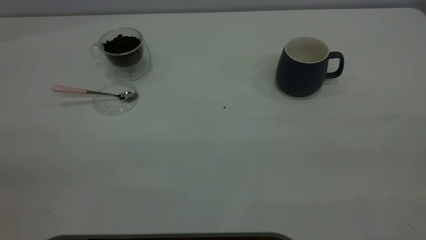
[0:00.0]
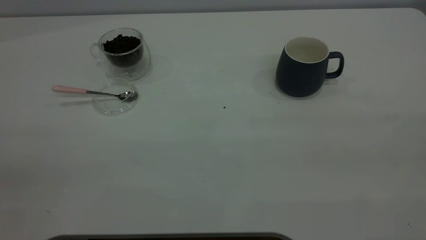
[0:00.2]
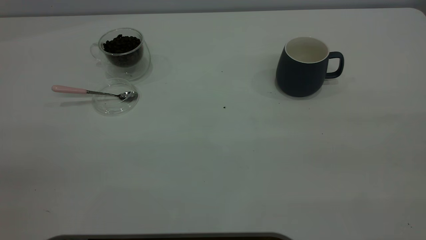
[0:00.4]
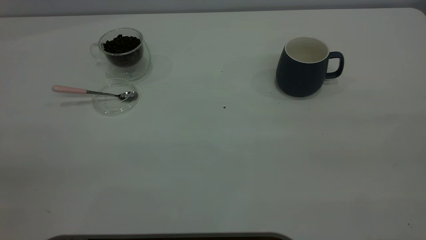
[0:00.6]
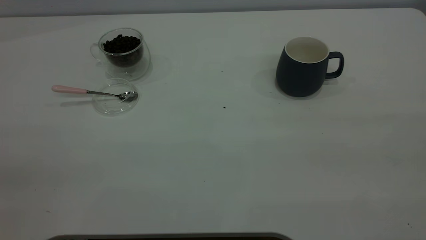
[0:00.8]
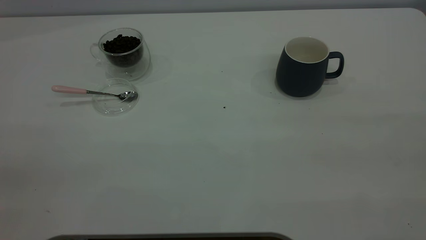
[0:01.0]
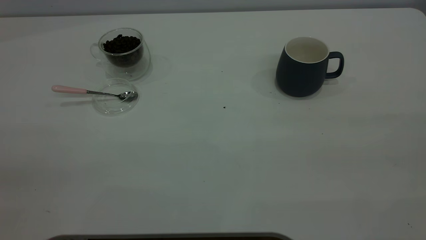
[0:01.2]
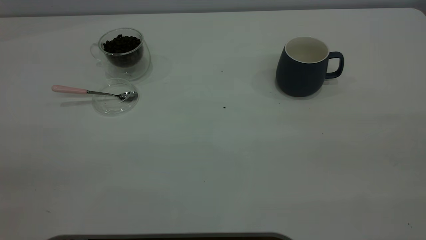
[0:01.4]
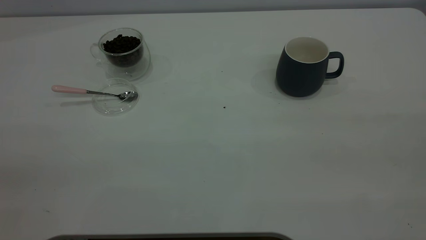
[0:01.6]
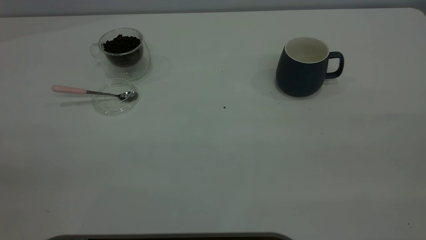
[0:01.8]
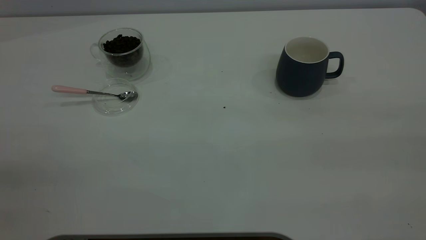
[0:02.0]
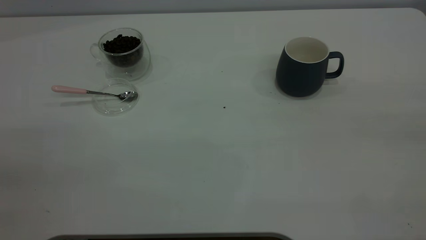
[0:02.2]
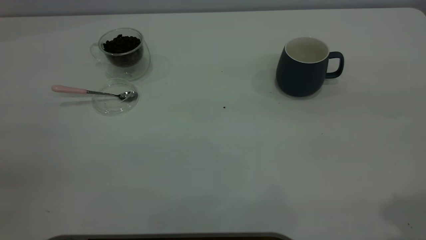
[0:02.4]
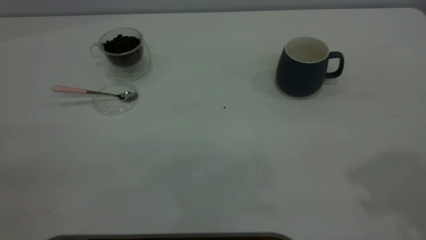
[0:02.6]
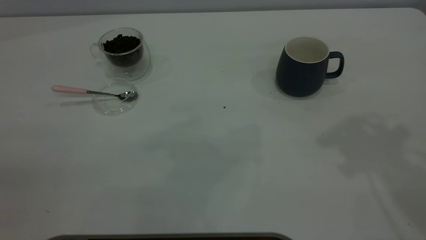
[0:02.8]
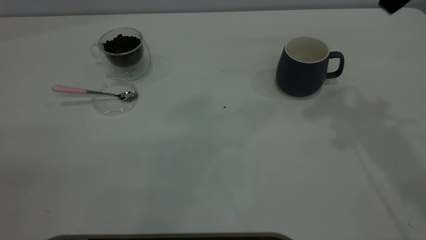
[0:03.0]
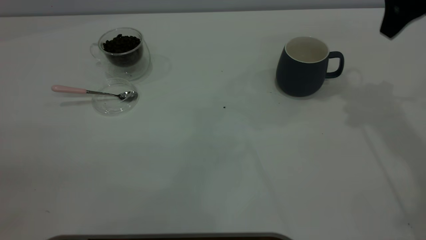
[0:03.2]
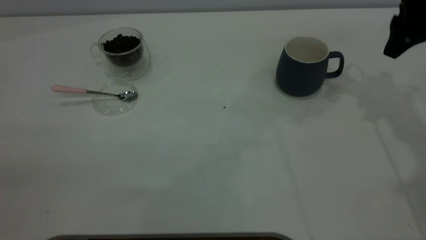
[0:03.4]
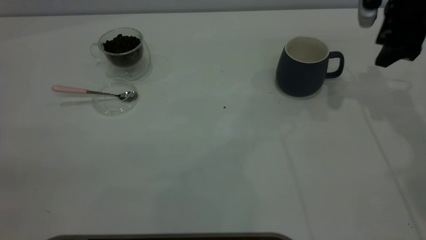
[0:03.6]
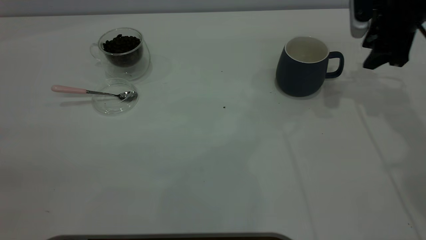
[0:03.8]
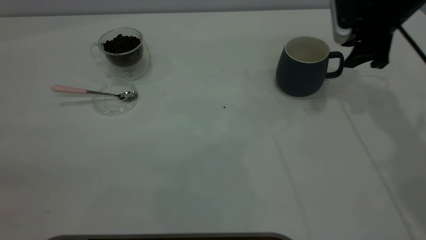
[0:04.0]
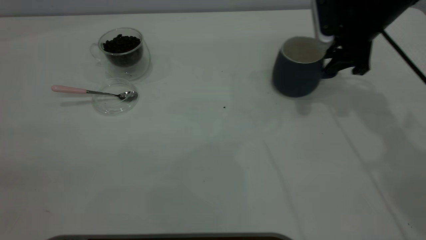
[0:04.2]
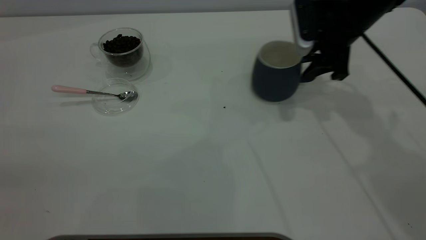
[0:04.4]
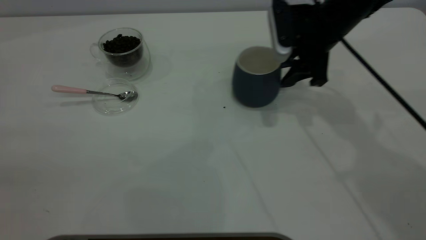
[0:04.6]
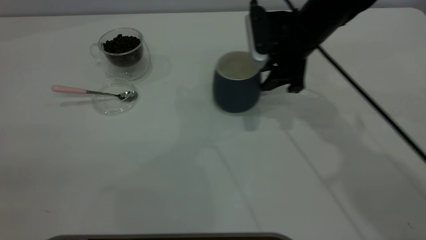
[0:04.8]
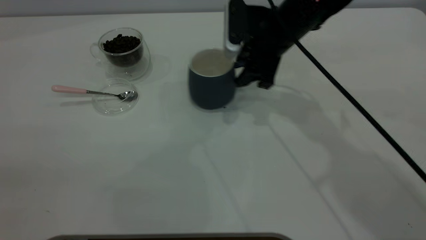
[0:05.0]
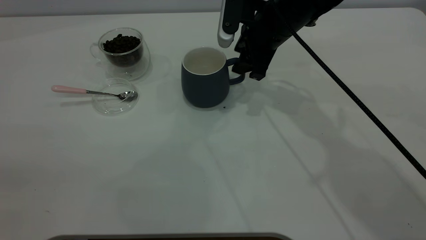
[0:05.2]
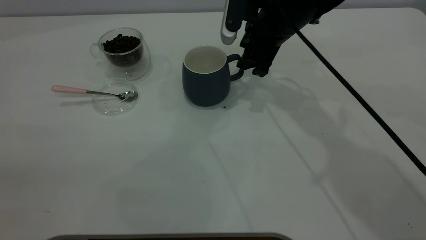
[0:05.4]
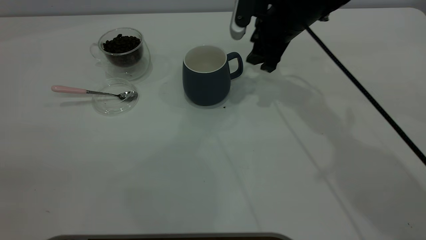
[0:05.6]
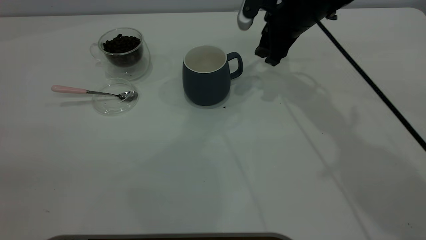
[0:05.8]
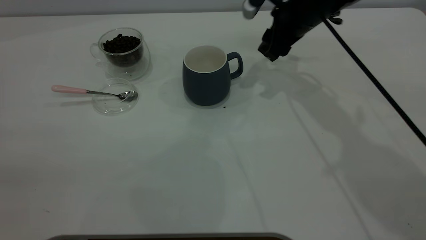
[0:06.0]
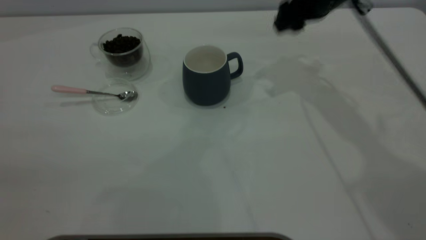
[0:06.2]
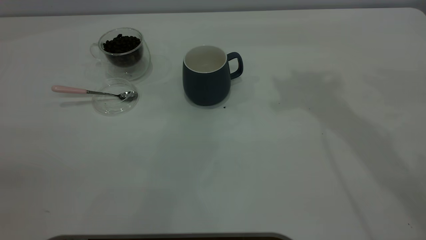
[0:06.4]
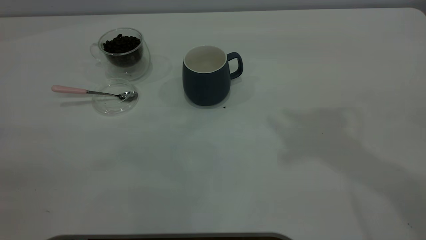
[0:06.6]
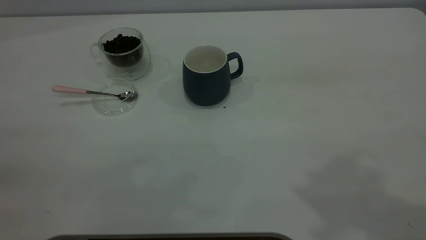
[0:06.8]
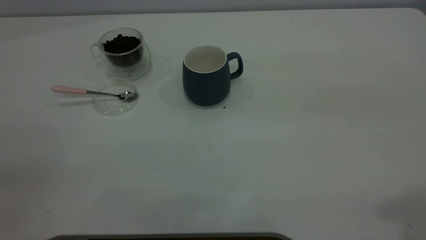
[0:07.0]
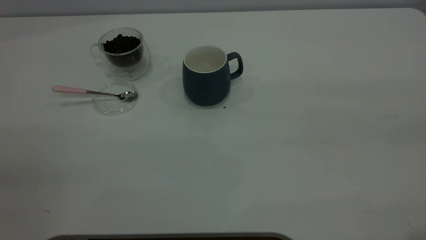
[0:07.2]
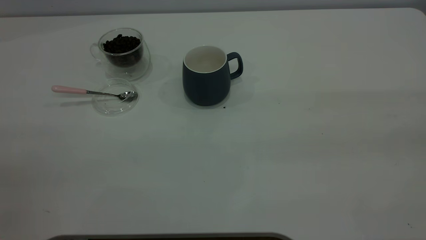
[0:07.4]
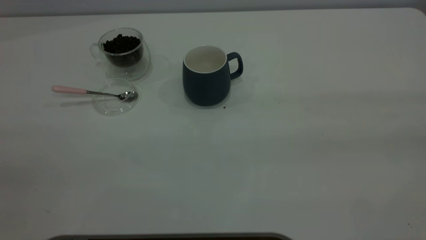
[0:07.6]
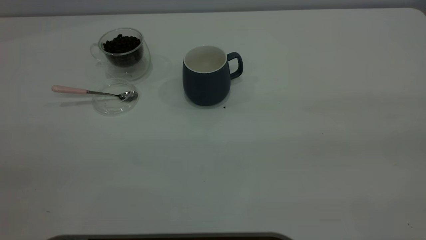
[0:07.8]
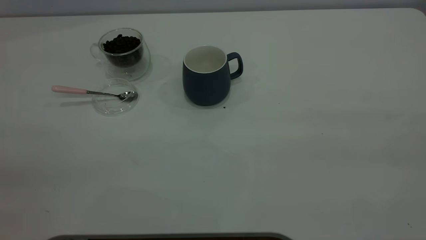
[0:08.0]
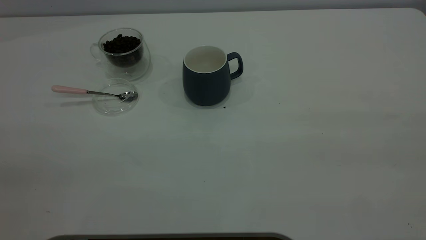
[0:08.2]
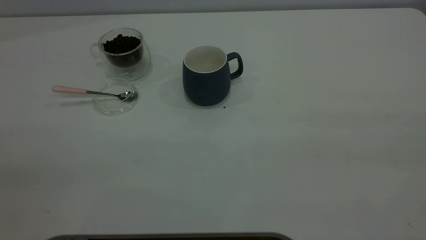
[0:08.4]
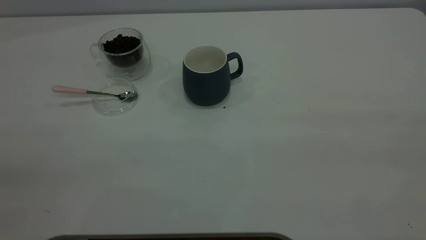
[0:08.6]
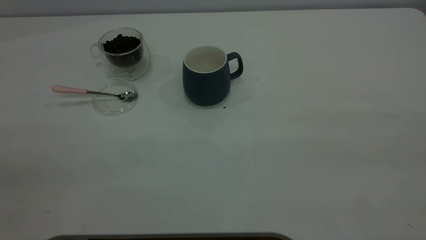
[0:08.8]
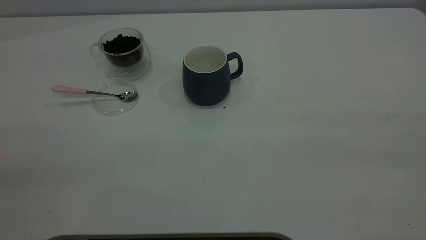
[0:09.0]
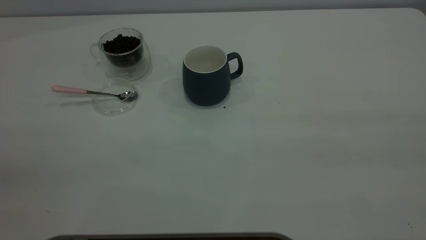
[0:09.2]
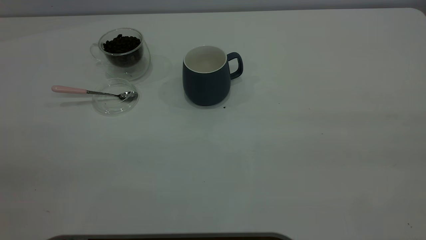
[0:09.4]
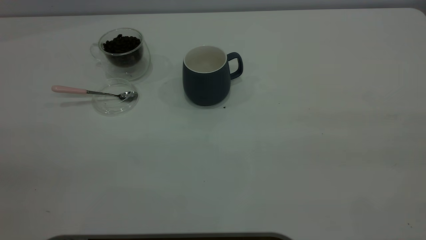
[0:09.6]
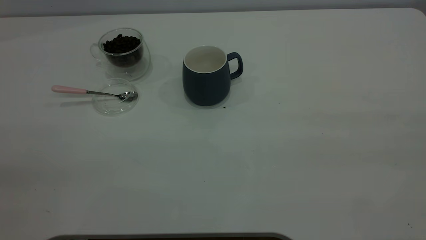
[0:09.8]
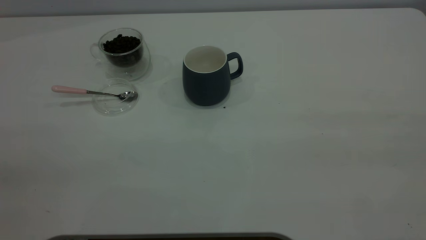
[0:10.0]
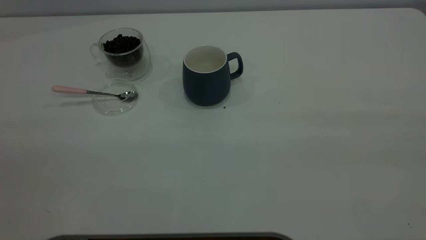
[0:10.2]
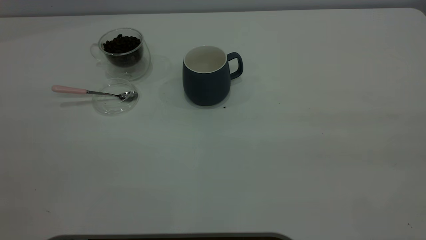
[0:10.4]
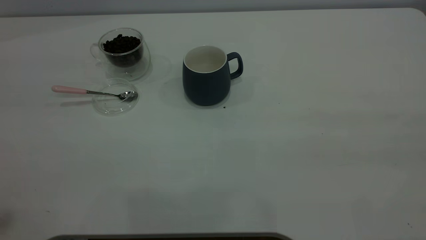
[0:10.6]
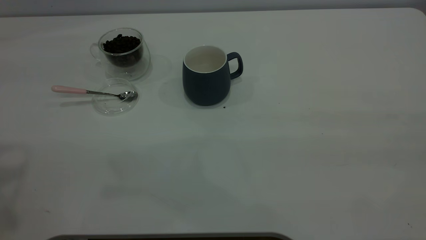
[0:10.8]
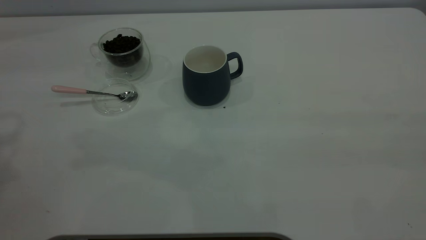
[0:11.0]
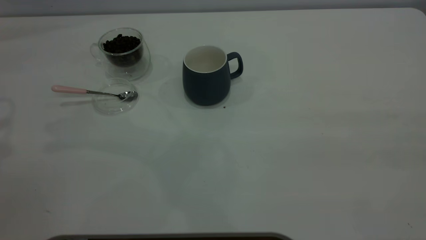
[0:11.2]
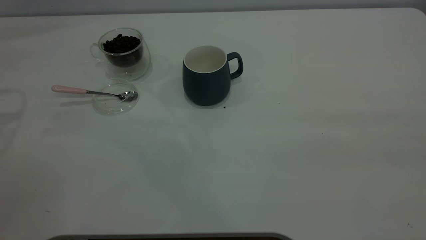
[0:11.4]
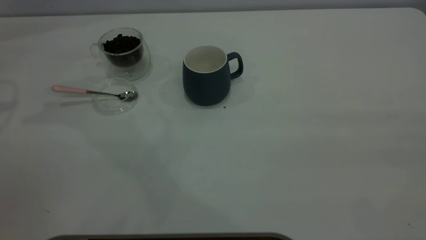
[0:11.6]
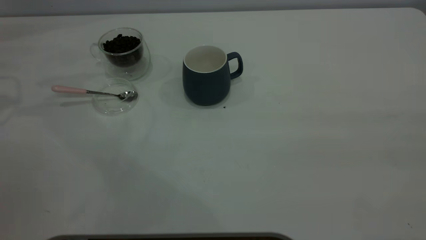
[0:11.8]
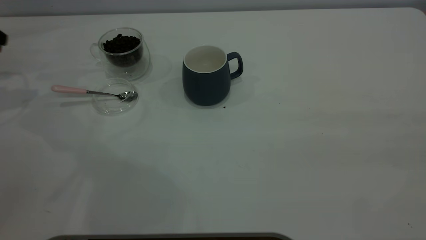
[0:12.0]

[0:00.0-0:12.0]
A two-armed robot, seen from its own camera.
Task of the whole recording: the right gripper place the grey cup in the center of the table, the left gripper take the pink spoon from the cup lid and scoop out the coffee beans from the coffee cup and put them into the grey cup, the left gripper put the spoon back into the cup lid.
Step, 0:00.0 to 0:05.4: Move the cup to the center of view.
0:00.0 to 0:01.6: Both grippers stay about where they are.
0:03.0 to 0:04.4: The right gripper goes some 20 cm downward and forward, and closes.
0:06.0 to 0:07.6: The right gripper heads backward and upward, covering about 50 cm, and closes its fingers.

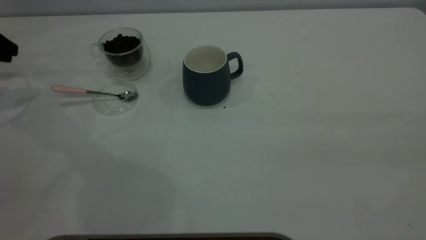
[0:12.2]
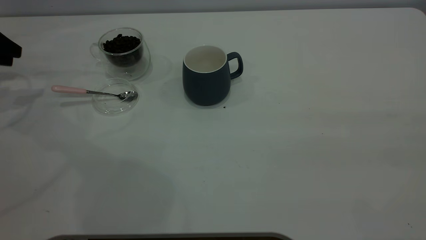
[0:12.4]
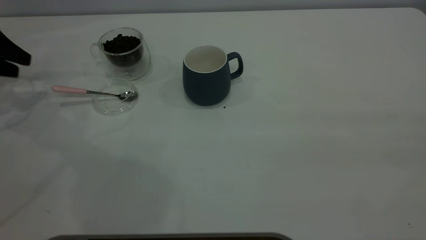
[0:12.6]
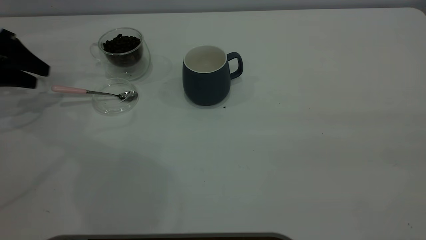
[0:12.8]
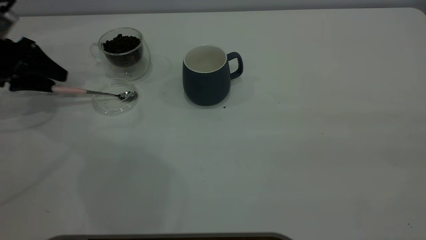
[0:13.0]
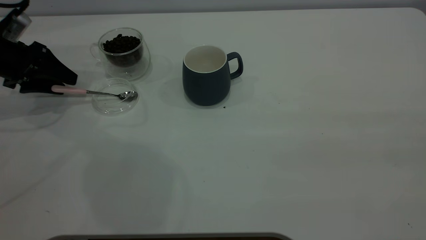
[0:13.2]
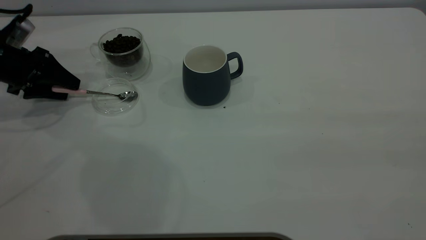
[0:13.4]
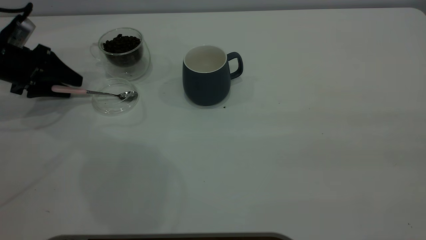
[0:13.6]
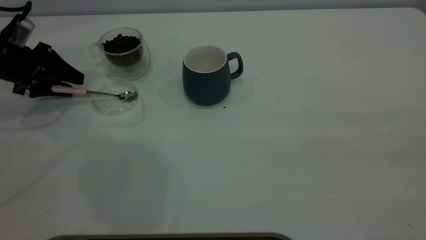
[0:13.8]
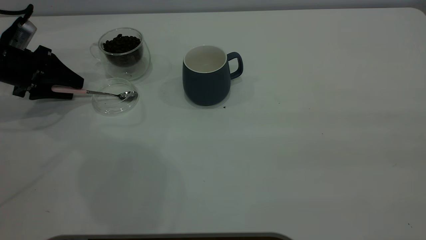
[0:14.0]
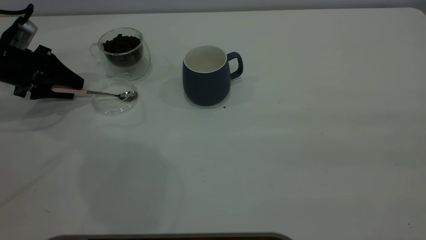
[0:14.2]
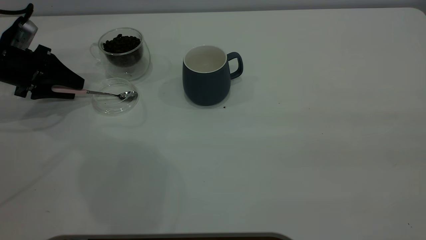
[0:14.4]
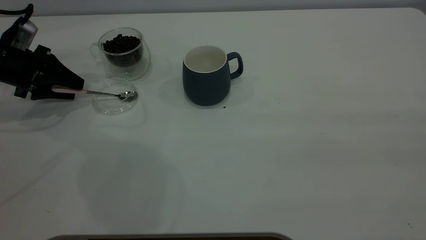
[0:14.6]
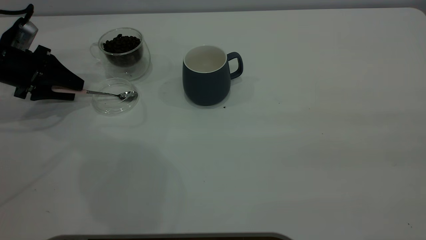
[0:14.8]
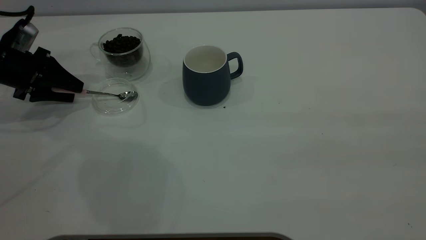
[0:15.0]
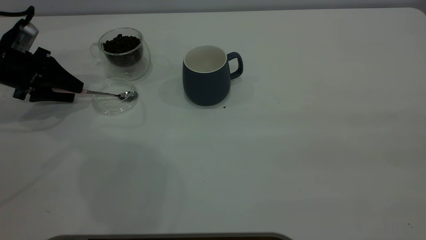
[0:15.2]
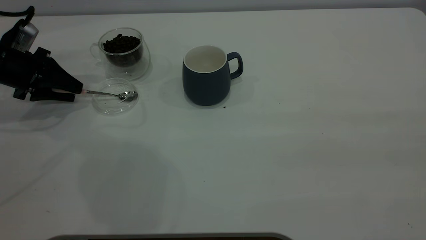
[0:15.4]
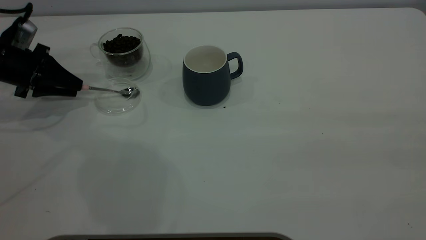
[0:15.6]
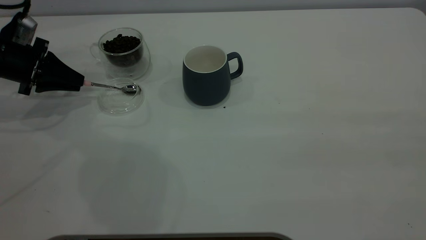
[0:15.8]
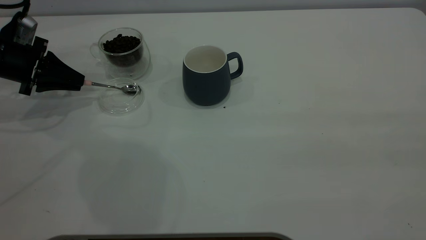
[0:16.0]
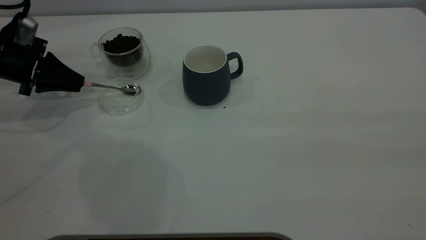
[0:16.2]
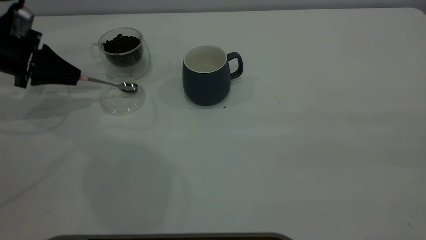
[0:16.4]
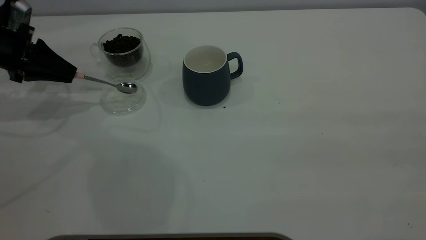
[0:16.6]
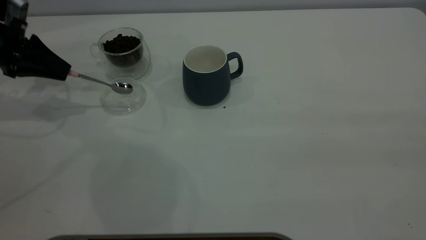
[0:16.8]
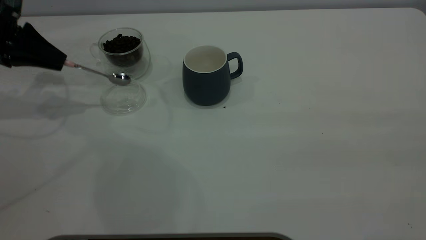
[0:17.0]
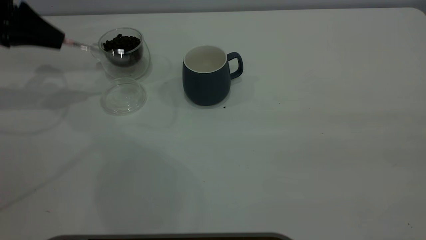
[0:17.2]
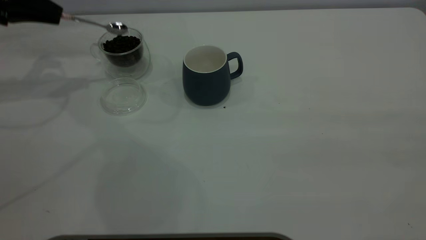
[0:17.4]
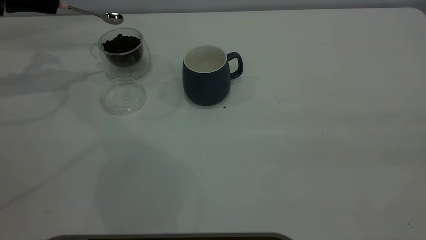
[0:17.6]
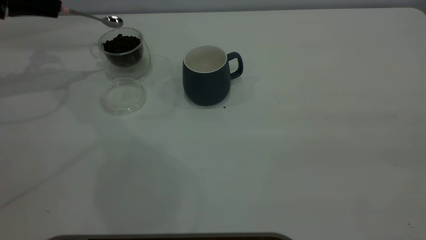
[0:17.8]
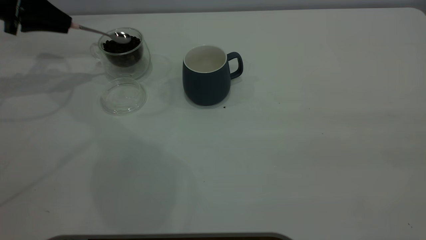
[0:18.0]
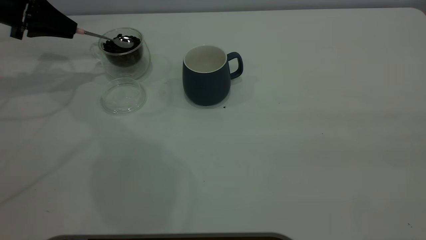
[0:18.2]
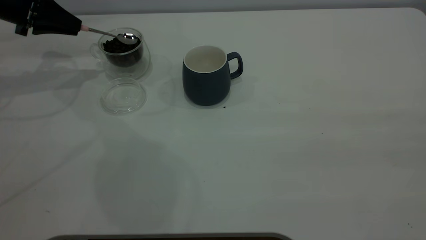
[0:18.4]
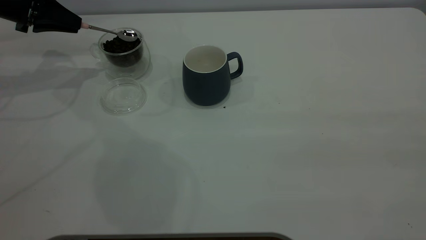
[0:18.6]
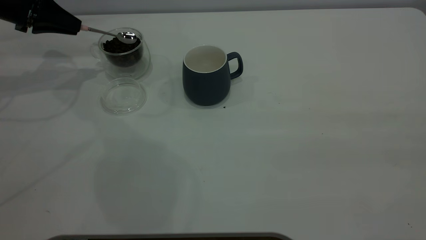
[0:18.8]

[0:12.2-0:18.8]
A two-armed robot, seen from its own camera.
Task of the whole recording: the right gripper place the grey cup in the center of the table, the left gripper take the pink spoon from the cup lid and scoop out the coffee beans from the coffee cup and put them into the grey cup, the left gripper put the spoon back into the cup lid.
Step, 0:12.2 to 0:17.0: Pick up the spoon.
0:12.2 to 0:13.8: The left gripper goes approximately 10 cm downward and to the right, and opens up.
0:13.8 to 0:15.4: The left gripper closes up.
0:15.4 to 0:17.2: The left gripper travels upward by some 10 cm, and closes up.
0:17.2 to 0:18.8: The grippers make only small movements.
